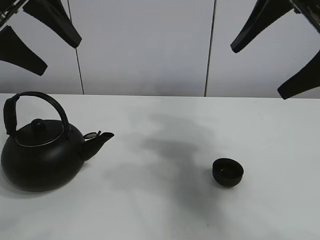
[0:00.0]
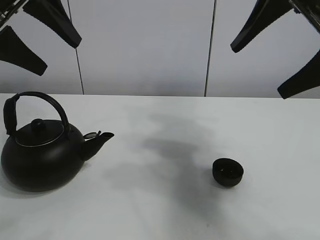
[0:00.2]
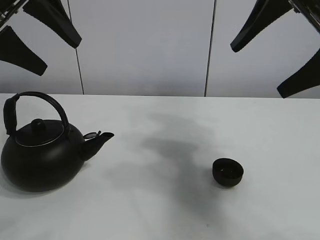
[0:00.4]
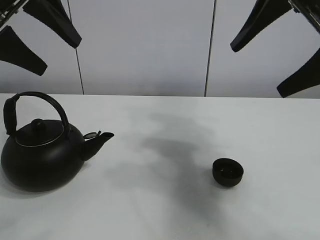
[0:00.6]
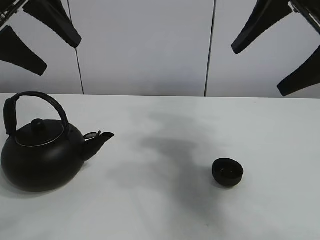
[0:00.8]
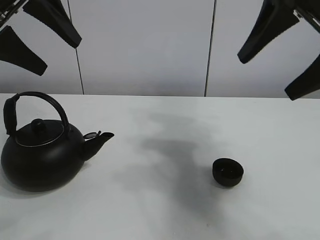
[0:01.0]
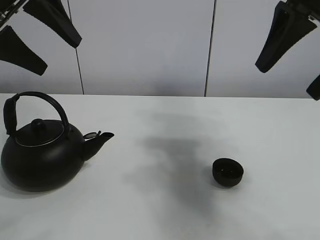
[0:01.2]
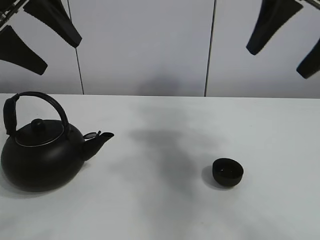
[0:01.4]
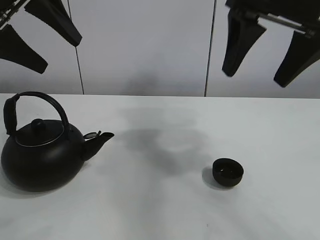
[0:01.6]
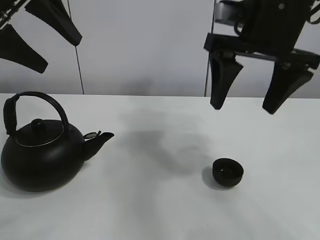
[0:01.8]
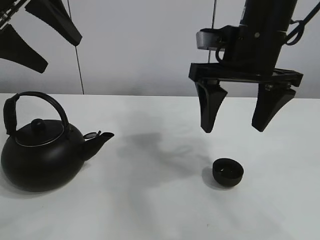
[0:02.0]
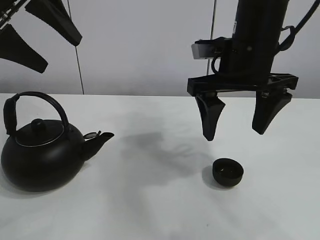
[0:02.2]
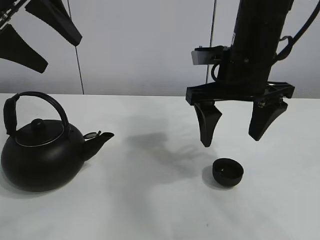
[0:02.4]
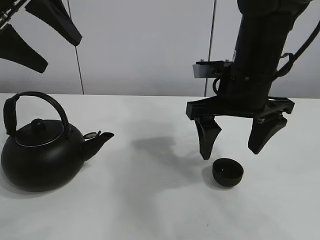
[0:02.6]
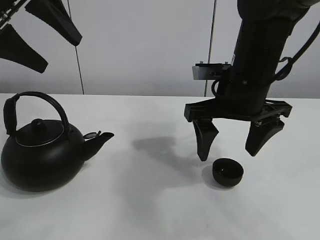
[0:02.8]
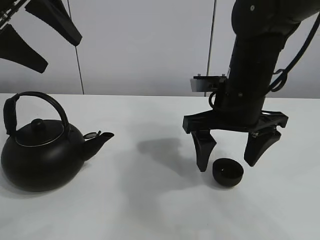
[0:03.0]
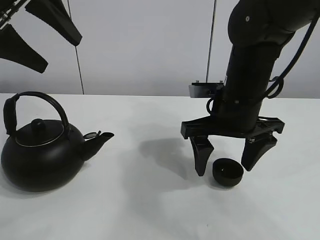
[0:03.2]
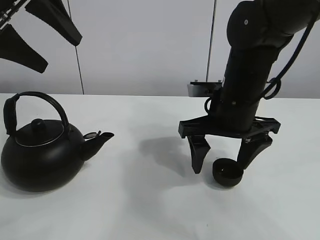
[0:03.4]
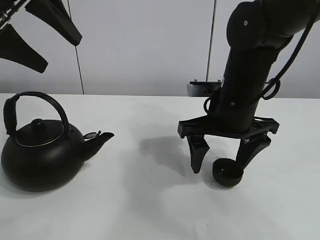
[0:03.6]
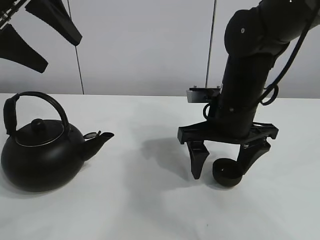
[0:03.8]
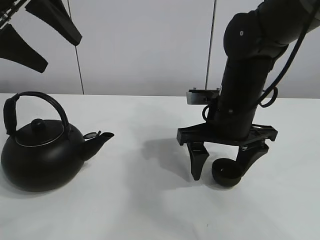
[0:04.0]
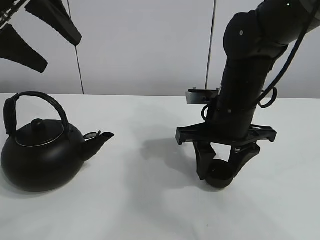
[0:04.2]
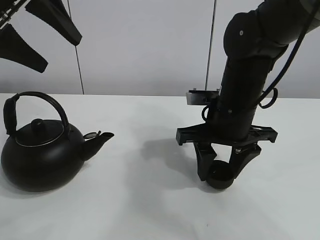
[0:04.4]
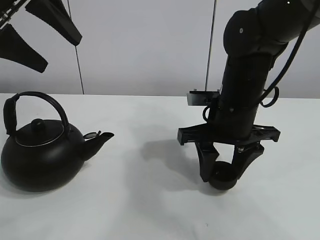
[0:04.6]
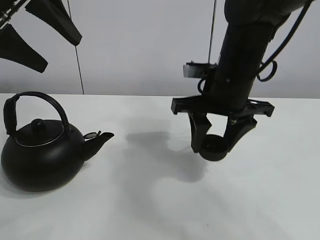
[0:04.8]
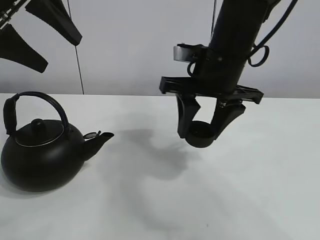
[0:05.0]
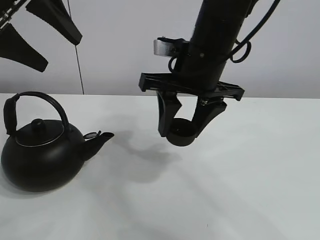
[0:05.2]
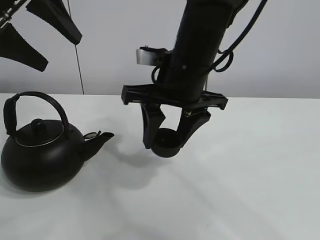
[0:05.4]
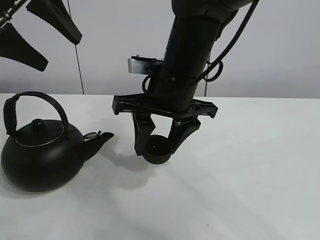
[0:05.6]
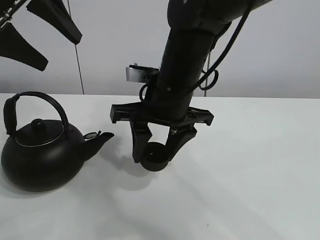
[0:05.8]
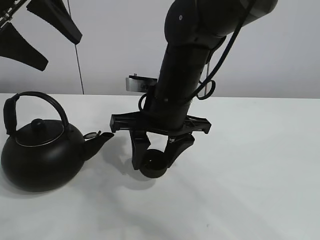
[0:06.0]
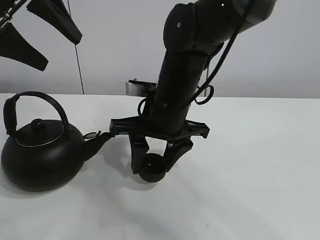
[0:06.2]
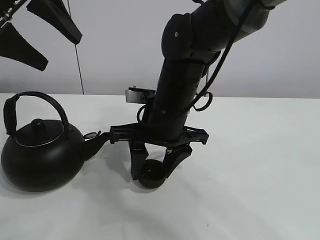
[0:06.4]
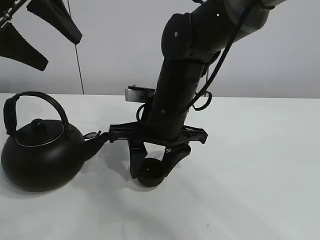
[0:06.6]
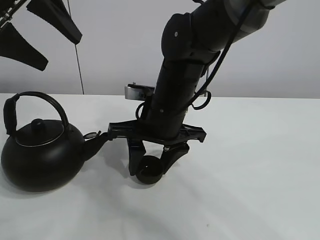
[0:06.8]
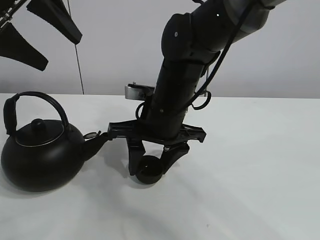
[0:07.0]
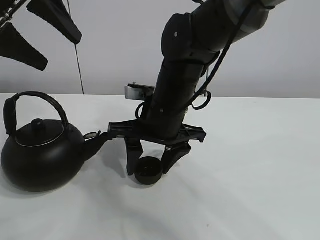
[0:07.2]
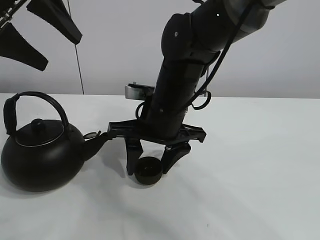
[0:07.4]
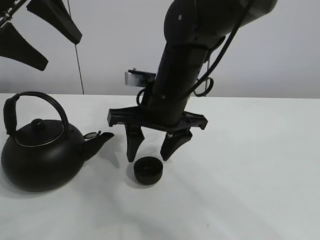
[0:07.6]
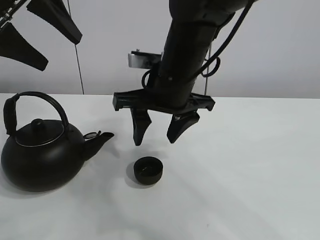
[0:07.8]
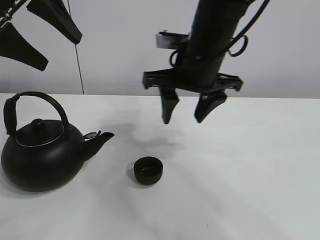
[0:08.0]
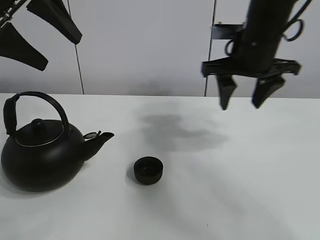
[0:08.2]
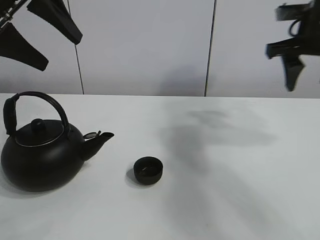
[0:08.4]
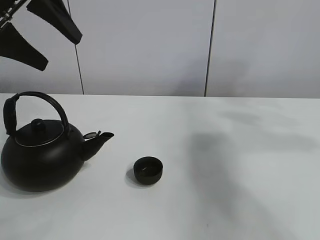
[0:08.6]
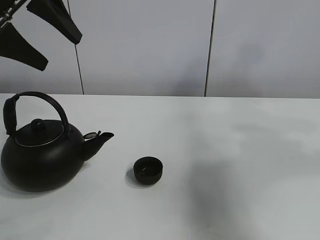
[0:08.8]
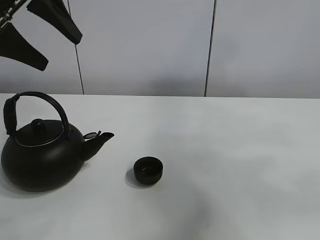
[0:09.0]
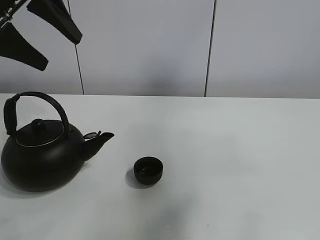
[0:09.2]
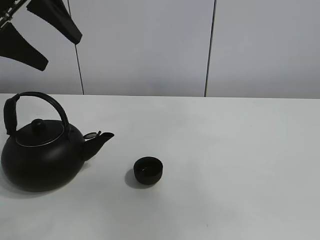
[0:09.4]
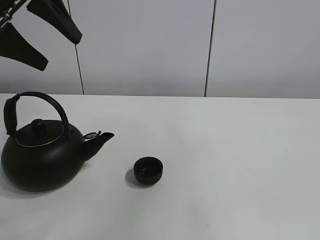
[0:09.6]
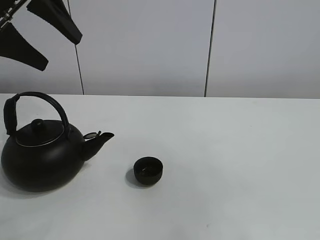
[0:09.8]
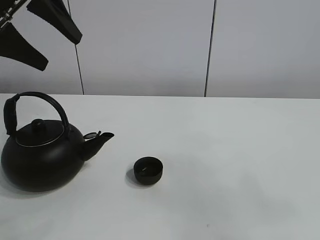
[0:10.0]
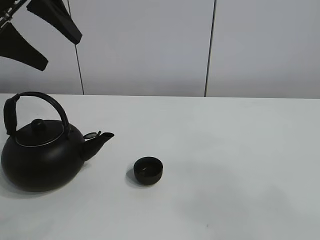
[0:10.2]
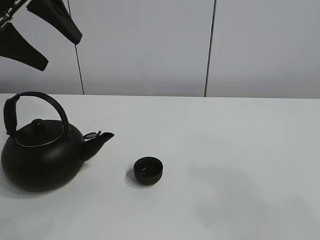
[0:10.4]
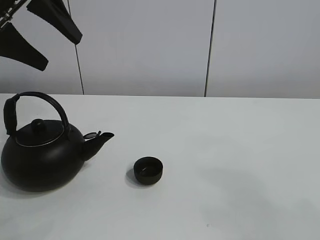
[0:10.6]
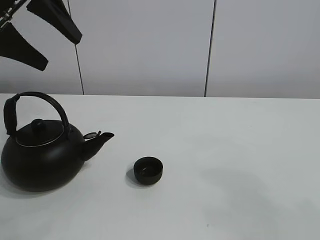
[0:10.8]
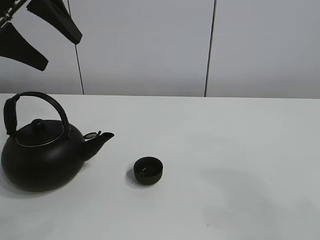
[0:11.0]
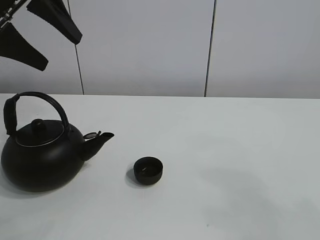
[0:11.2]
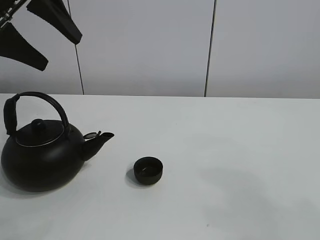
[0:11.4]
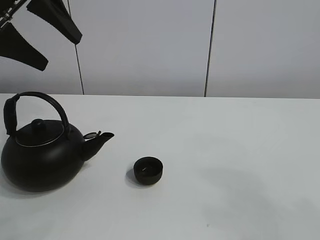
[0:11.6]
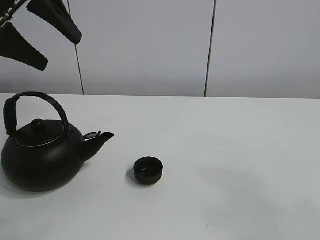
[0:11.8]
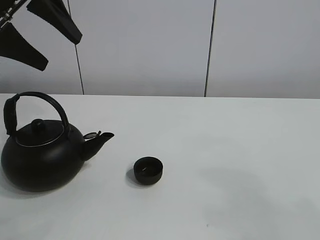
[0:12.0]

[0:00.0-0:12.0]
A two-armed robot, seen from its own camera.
Task of the whole recording: pour tea into the teacup.
Step, 0:00.0 to 0:04.6: Pick up the teacup with the right gripper.
Step, 0:04.8 to 0:07.4: Place the teacup in the center of view with the right gripper.
0:01.6 to 0:03.0: The right gripper shifts approximately 15 cm downward.
0:03.0 to 0:04.4: The right gripper closes up.
0:04.4 to 0:06.0: The right gripper heads to the left, covering approximately 10 cm.
0:06.0 to 0:07.6: The grippers stay close to where they were, moving slightly.
0:07.6 to 0:09.0: The right gripper is displaced to the right, upward and backward by roughly 50 cm.
0:09.0 to 0:10.4: The right gripper travels backward, downward and to the left by approximately 30 cm.

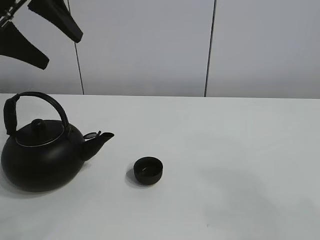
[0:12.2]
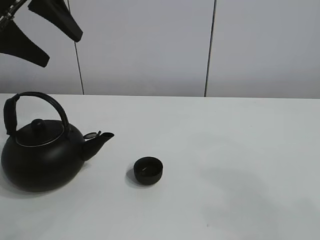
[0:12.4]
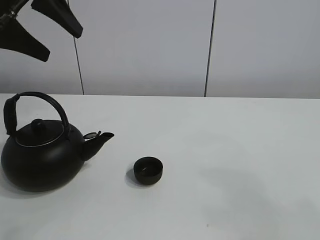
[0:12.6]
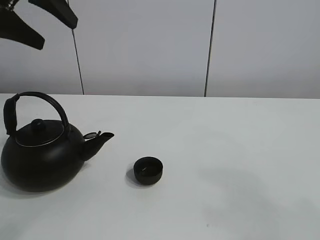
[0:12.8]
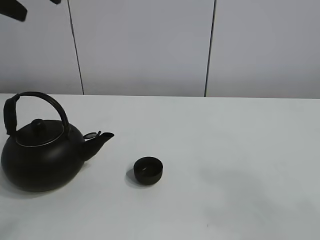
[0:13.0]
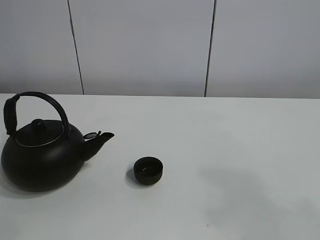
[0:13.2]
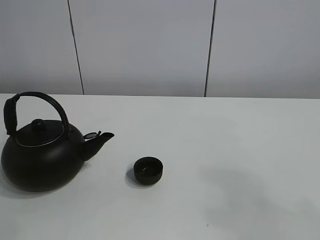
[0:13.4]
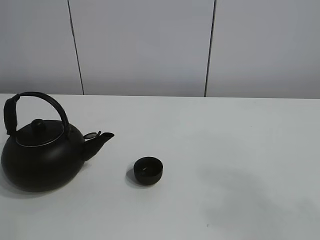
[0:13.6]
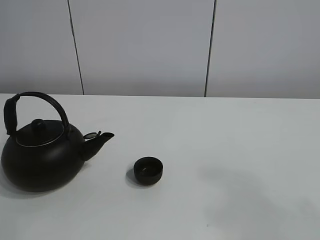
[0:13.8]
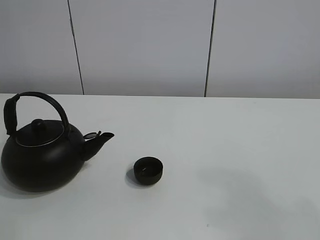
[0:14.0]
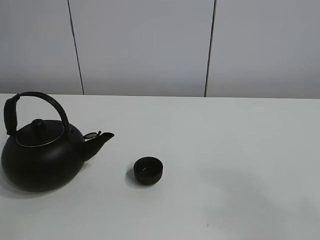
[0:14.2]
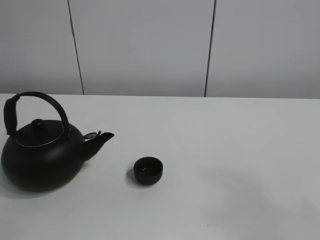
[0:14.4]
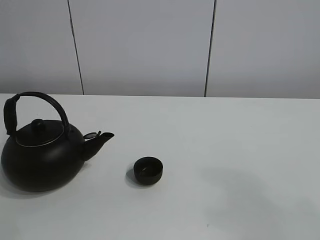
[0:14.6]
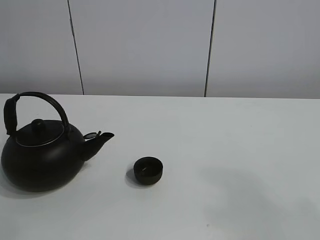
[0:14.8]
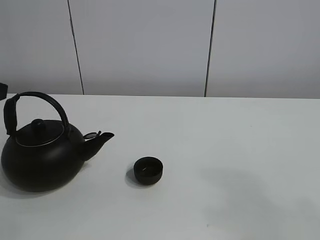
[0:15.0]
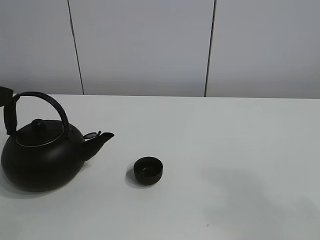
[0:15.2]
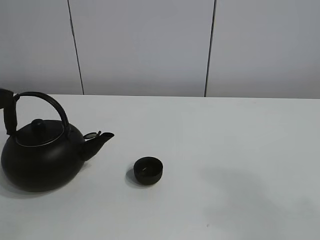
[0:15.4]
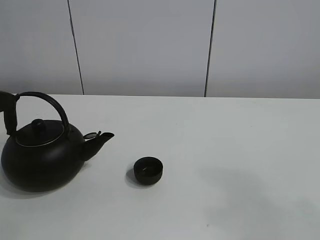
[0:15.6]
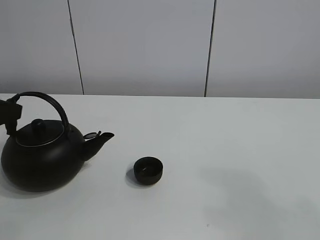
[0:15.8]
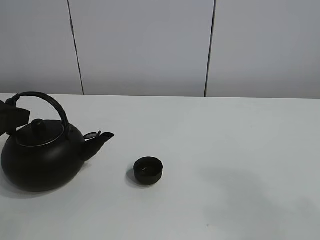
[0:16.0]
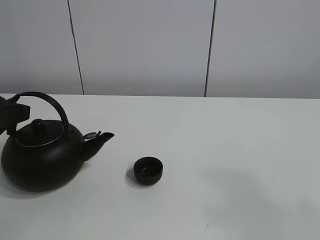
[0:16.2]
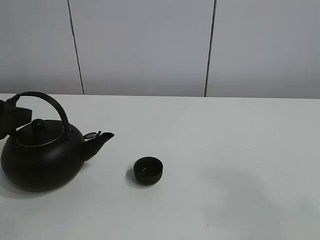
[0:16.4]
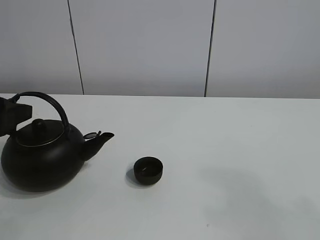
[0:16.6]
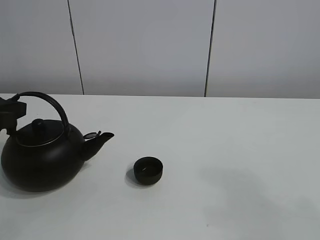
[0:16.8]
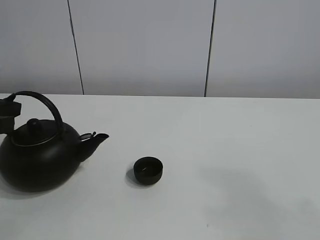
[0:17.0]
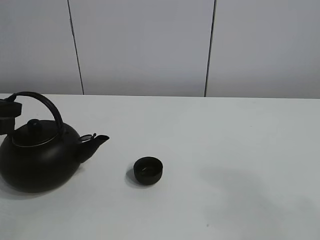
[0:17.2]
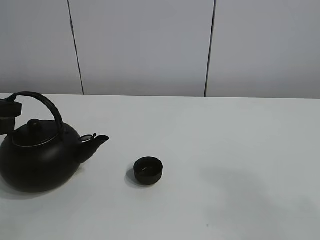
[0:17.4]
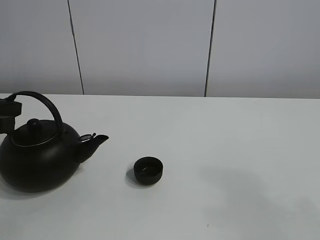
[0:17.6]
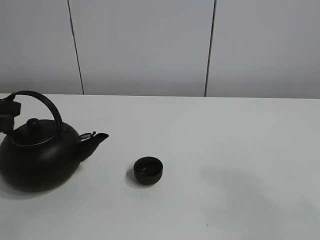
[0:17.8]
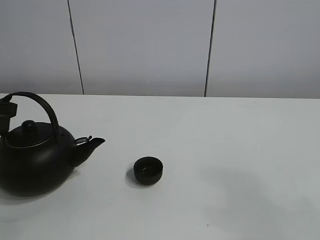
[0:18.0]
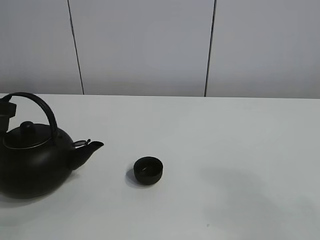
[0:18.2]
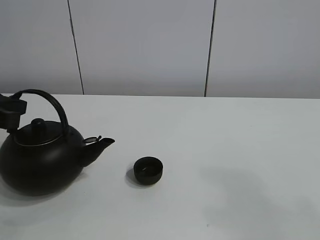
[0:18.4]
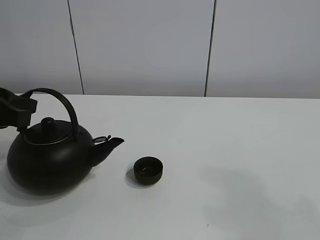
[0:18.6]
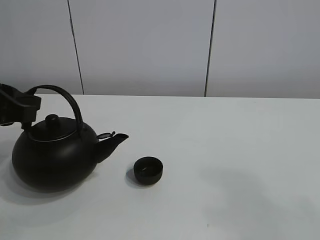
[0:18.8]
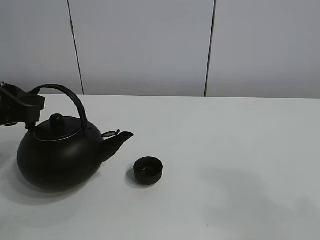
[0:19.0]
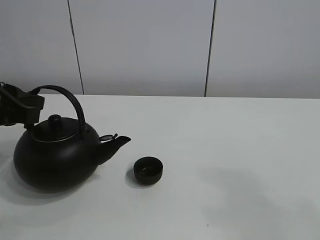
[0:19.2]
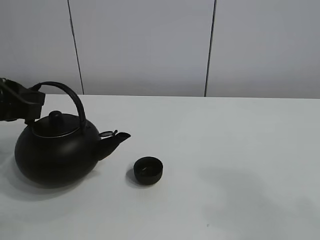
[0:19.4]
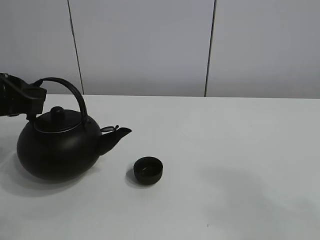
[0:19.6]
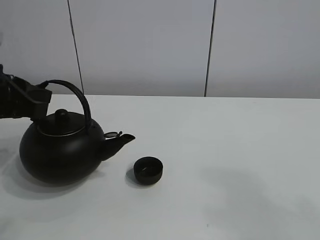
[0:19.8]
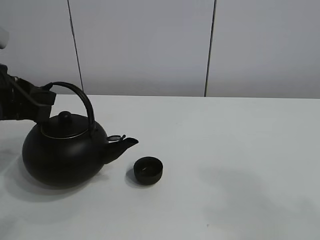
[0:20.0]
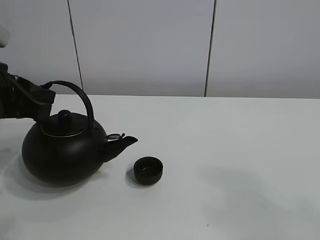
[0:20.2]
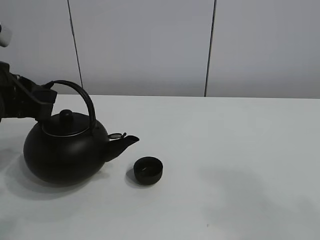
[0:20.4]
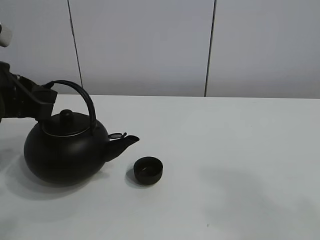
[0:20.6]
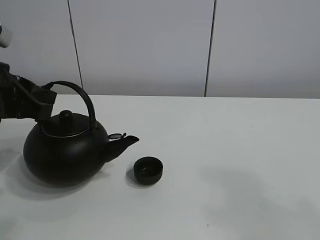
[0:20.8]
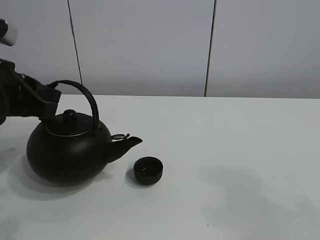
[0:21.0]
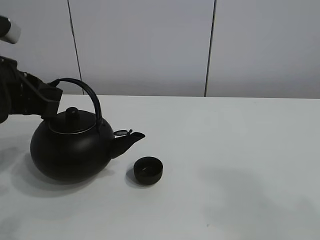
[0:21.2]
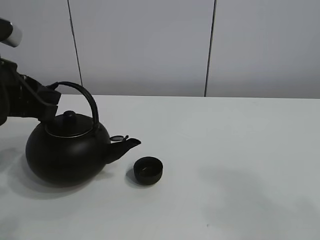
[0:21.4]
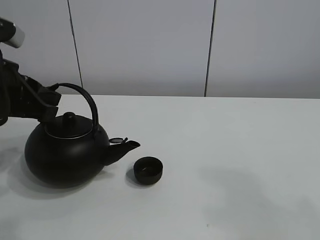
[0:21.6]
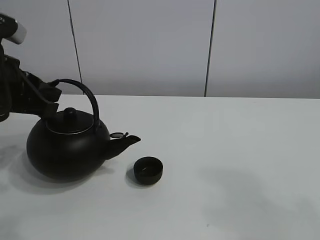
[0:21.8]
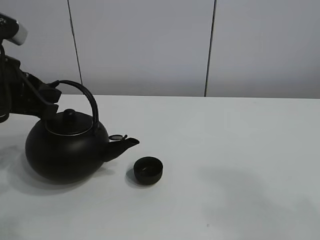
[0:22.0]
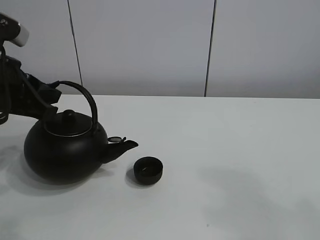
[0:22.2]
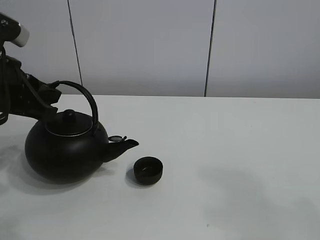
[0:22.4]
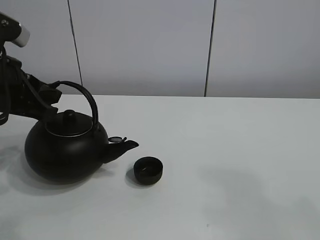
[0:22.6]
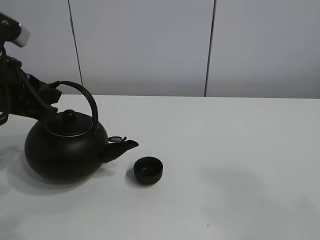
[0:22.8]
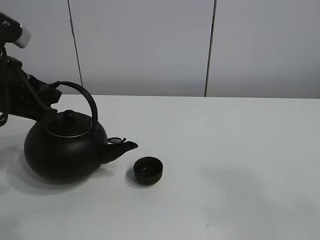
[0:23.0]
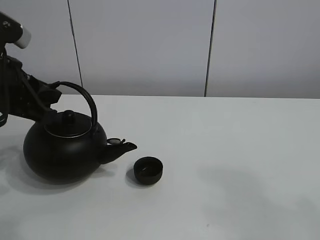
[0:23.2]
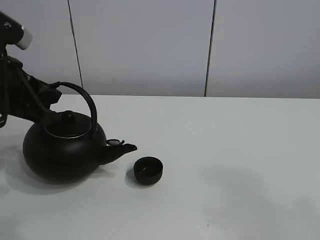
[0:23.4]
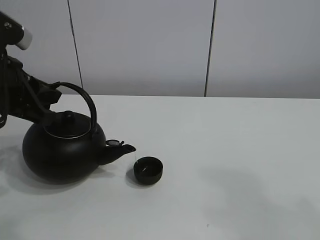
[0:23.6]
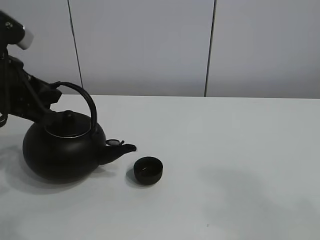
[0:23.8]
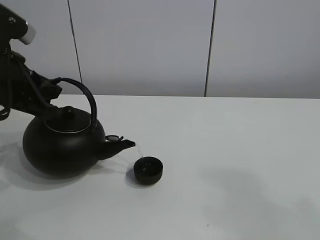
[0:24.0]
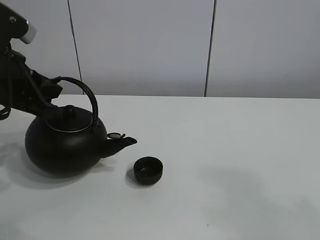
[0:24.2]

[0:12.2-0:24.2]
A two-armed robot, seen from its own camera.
Task of the whole recording: pour tea into the teacup.
Step, 0:12.2 to 0:18.0: Pick up the teapot with the left gripper.
0:12.2 to 0:13.8: The left gripper travels backward by about 15 cm.
0:15.2 to 0:16.6: The left gripper moves approximately 5 cm.
0:16.6 to 0:18.2: The left gripper closes.
0:18.2 to 0:19.8: The left gripper moves roughly 5 cm.
0:19.8 to 0:24.2: The grippers move only a little.
